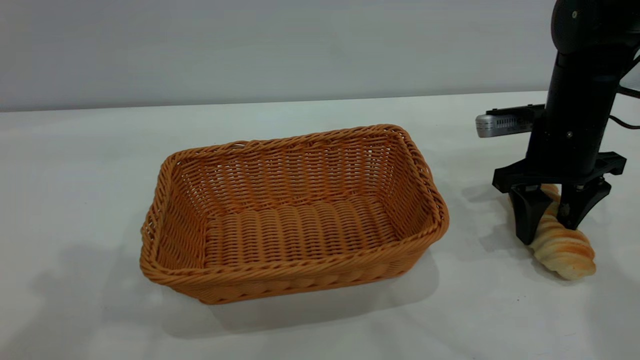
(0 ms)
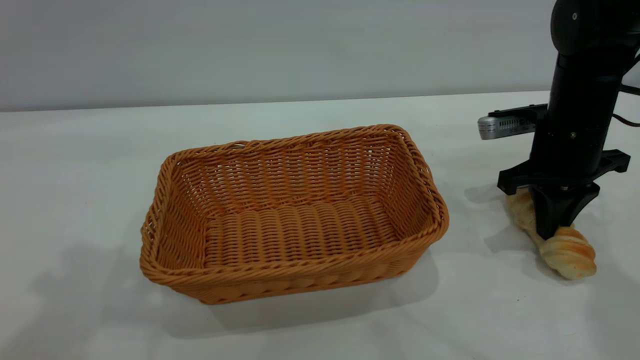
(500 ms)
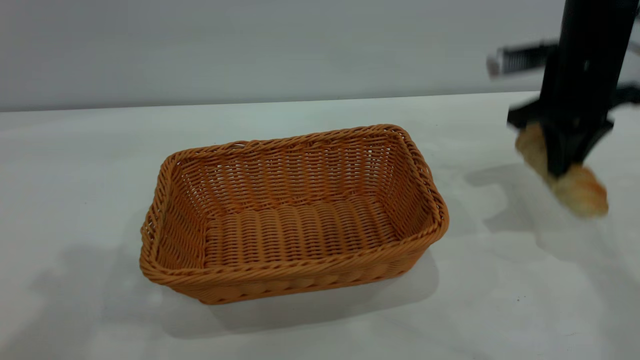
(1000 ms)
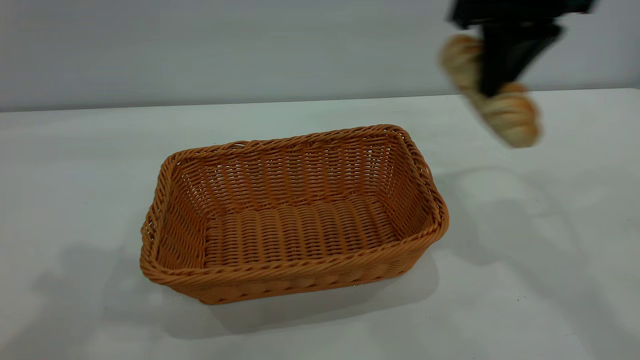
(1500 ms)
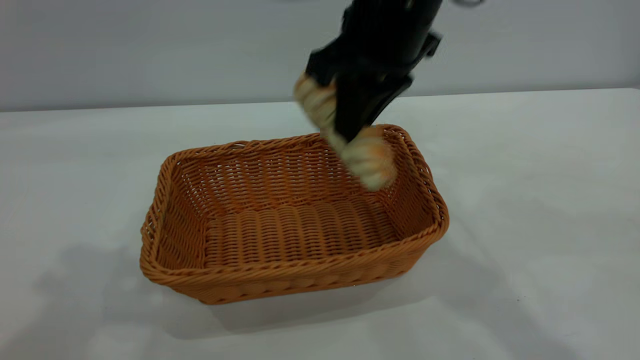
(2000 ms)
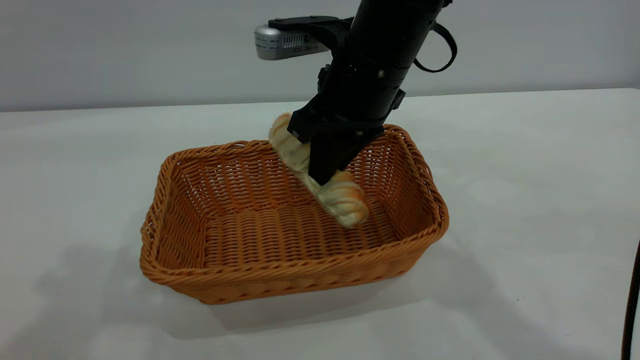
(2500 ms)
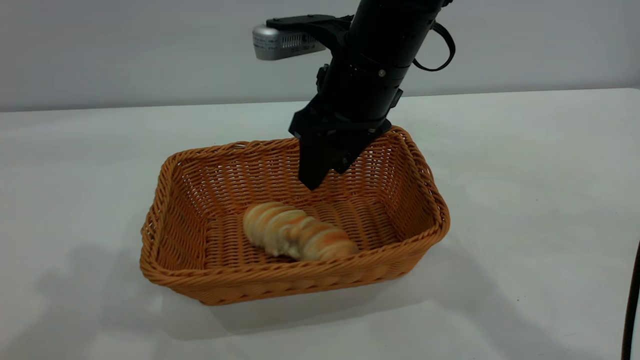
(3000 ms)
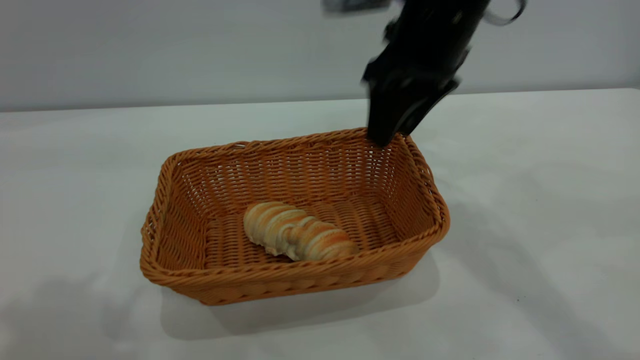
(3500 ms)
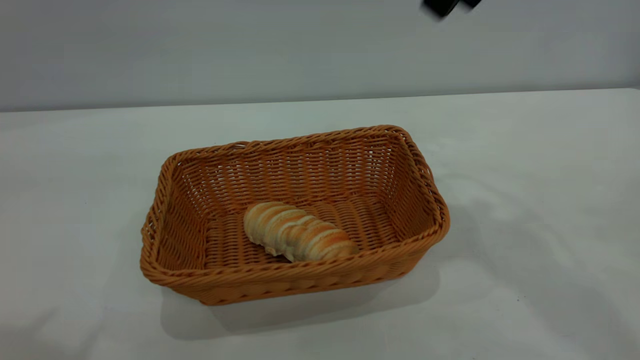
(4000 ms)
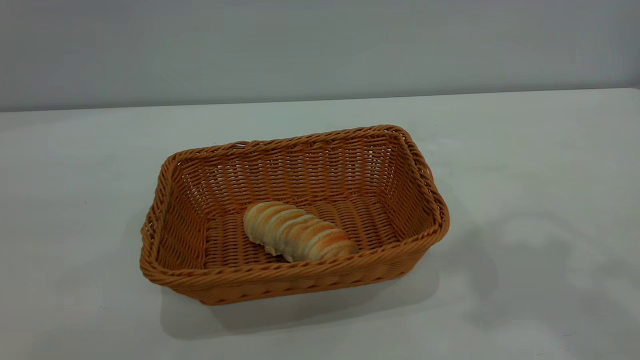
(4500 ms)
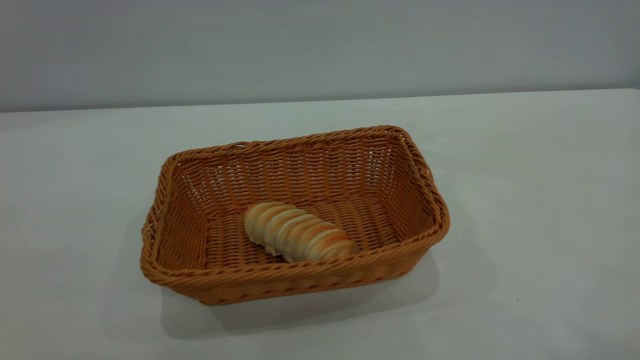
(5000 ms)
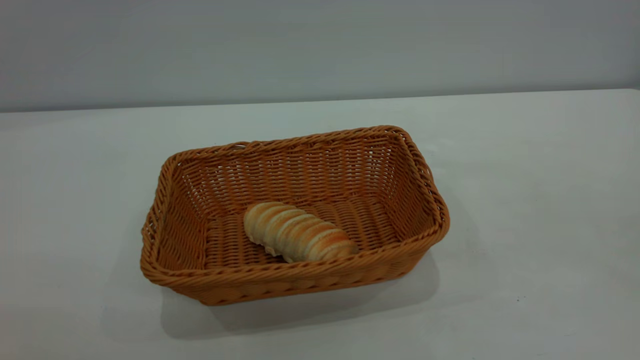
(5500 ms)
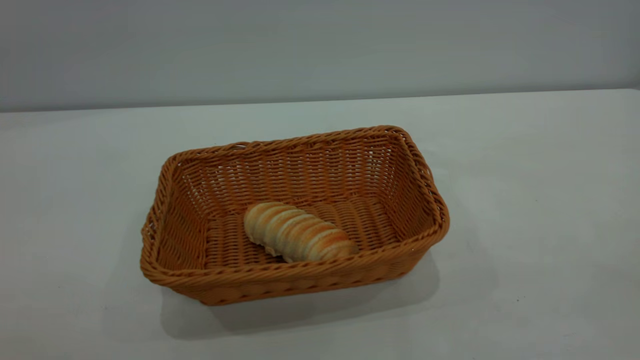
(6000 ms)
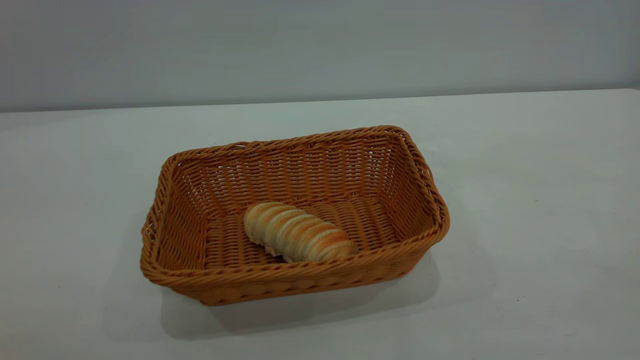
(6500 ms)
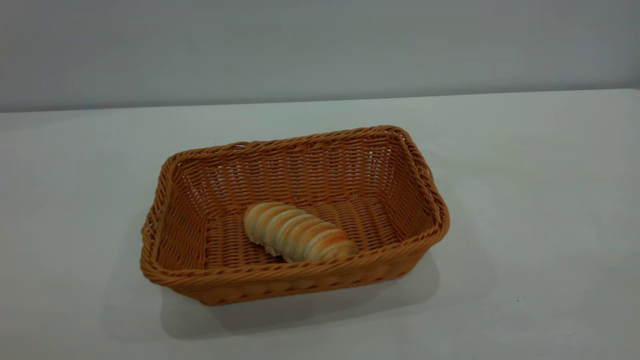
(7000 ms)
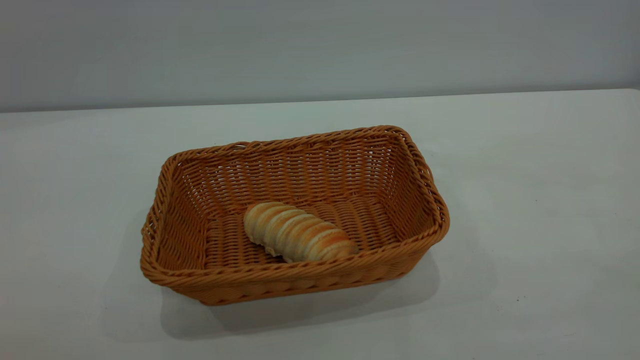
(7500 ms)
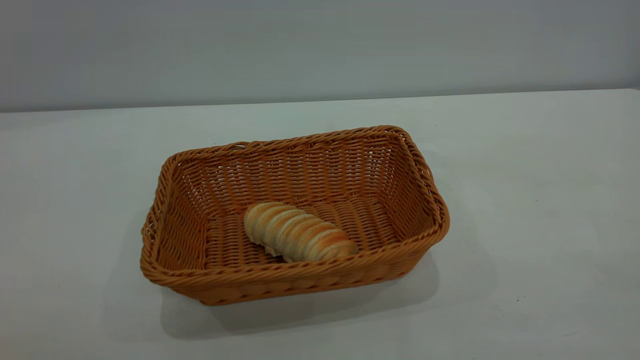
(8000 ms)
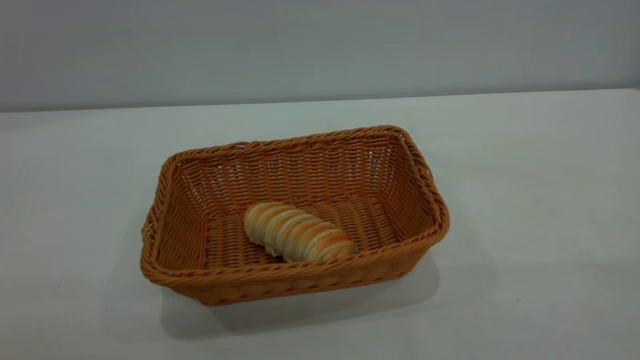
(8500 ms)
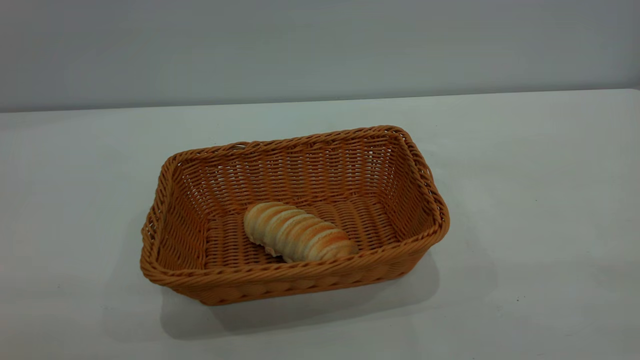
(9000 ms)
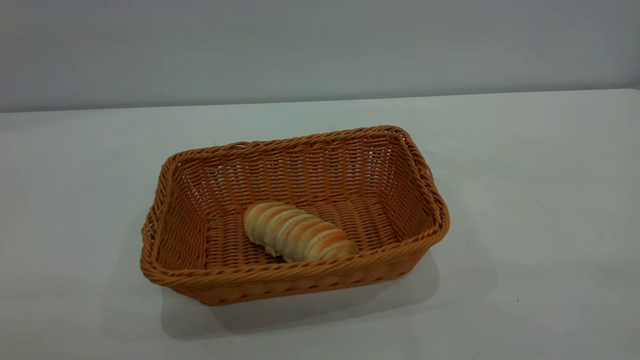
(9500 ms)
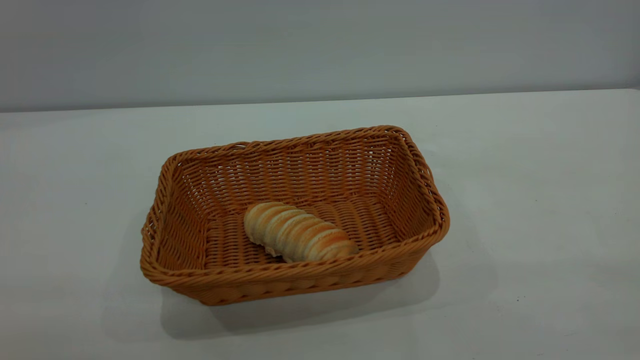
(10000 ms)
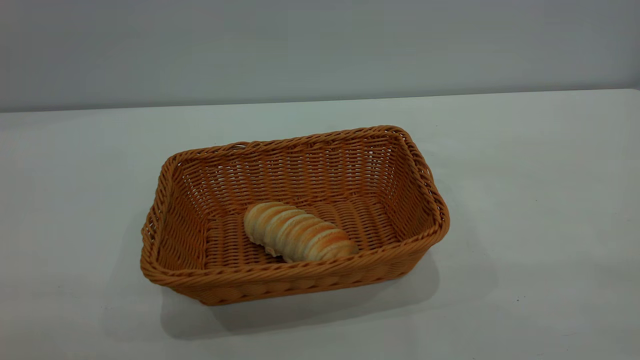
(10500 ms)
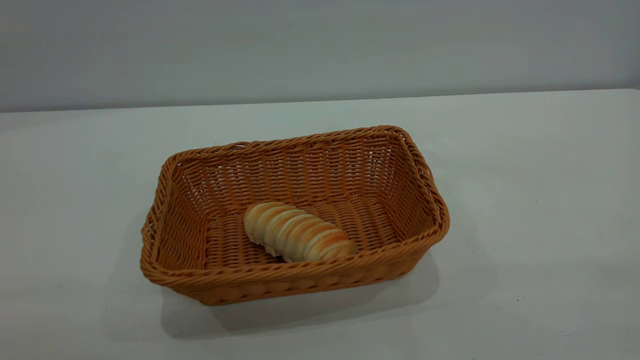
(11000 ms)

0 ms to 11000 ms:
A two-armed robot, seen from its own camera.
Task of the whole recording: One hand grasps the yellow basket and places it in the middle of the table, while the other hand picks up the long bread and puts it into the yellow basket.
Step, 1500 ms to 3500 ms: place the bread into the basket.
0 ms to 2000 ms: The right gripper moves to the left and upward, some 25 cm, and closes its fingers.
2000 ms to 3500 ms: The left gripper changes place by about 5 cm; the right gripper goes approximately 5 cm to the right, and opens its fingers.
3500 ms to 5500 ms: The right gripper is displaced backward, upward and to the right by roughly 40 cm. The left gripper is displaced backward by about 25 cm.
9000 ms to 11000 ms: Both grippers stay put.
